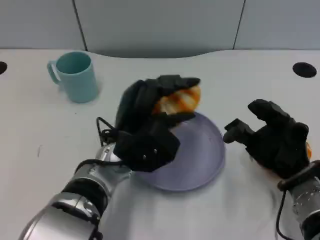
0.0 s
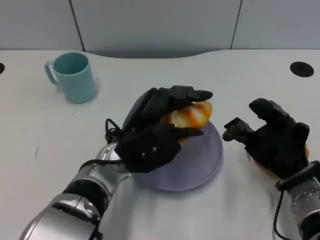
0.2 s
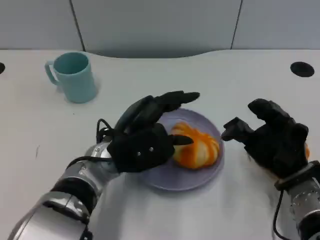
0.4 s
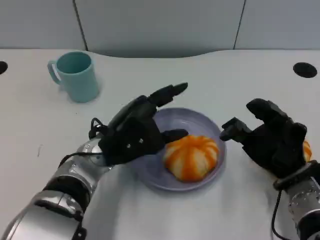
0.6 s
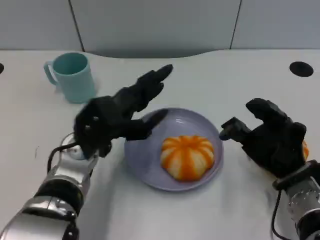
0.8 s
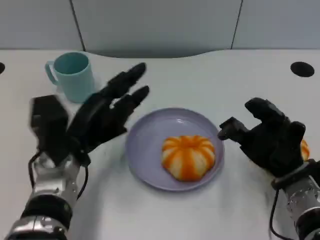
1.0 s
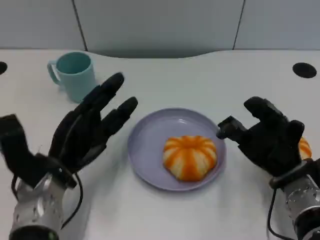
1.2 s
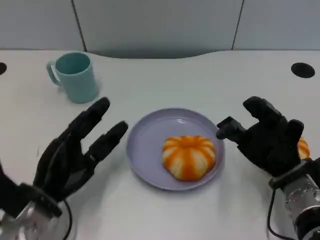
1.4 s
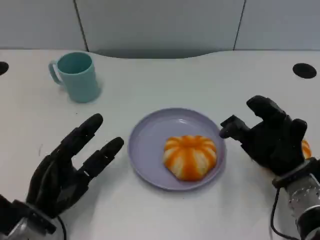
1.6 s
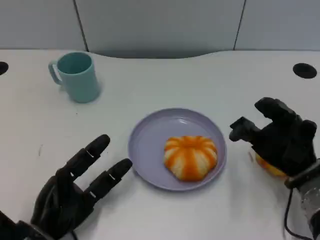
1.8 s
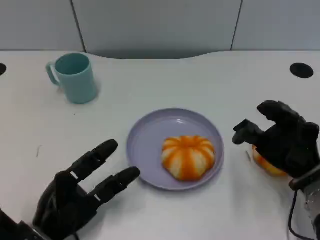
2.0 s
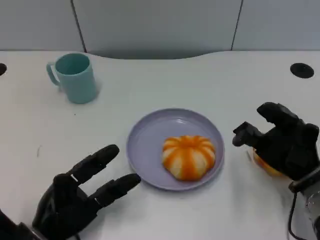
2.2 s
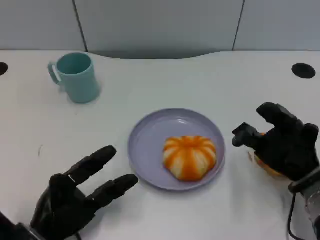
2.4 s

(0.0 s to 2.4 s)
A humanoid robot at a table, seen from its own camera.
Task of the whole recording: Grasp the bread from the table and place it into the plate.
0.0 s - 1.2 s: The left hand travels to the left by roughly 10 cm.
1.2 s - 2.4 s: The left hand is displaced backward and downward by approximately 10 cm.

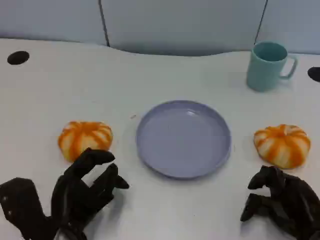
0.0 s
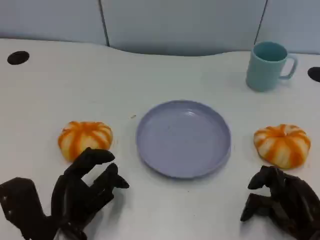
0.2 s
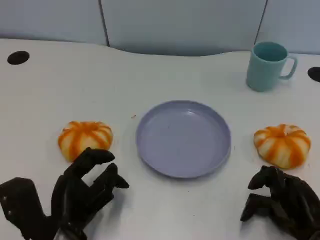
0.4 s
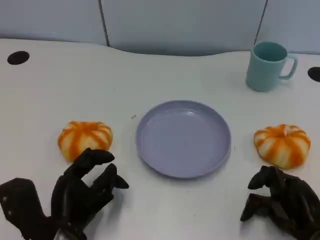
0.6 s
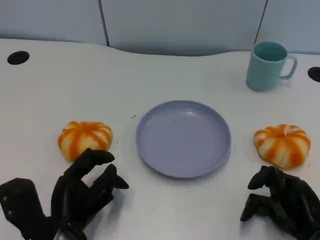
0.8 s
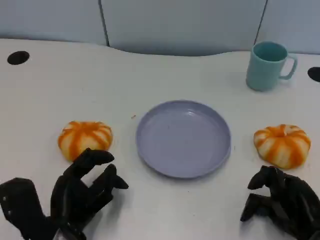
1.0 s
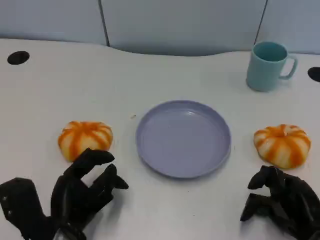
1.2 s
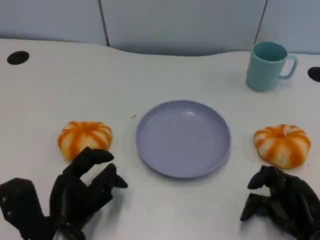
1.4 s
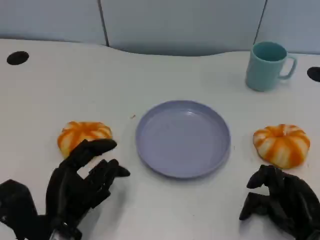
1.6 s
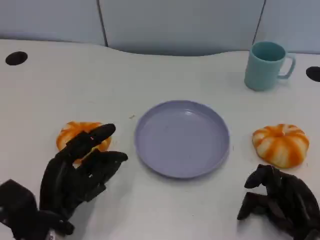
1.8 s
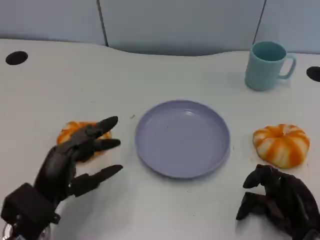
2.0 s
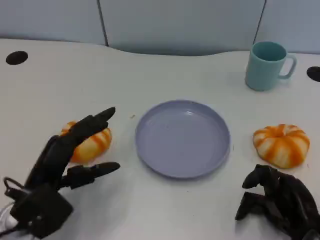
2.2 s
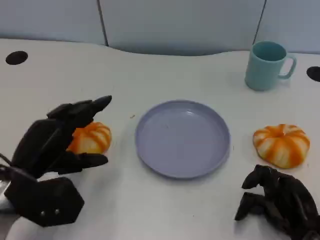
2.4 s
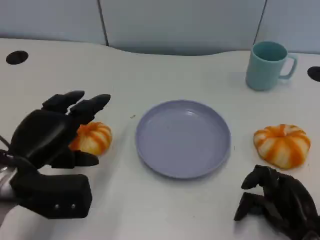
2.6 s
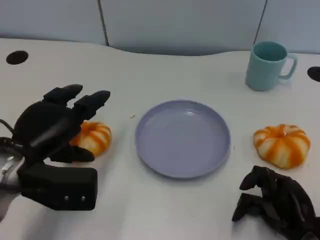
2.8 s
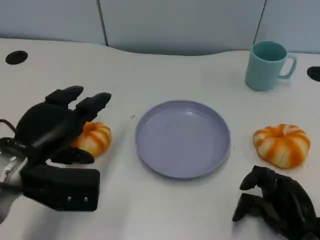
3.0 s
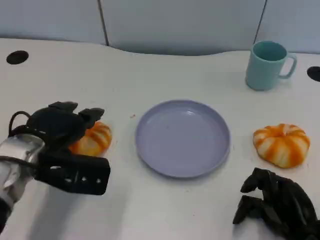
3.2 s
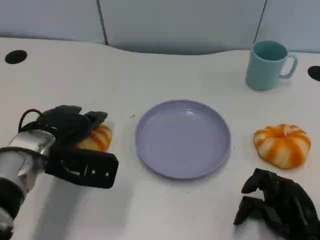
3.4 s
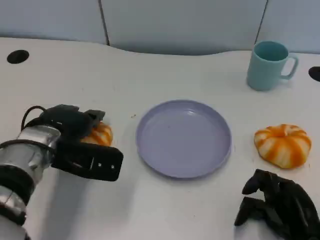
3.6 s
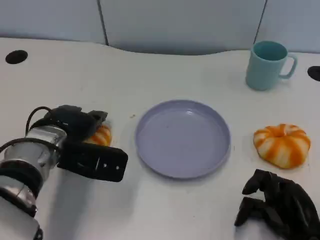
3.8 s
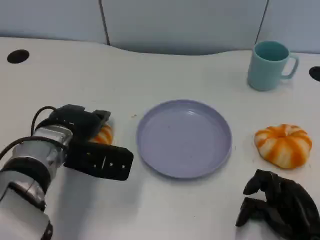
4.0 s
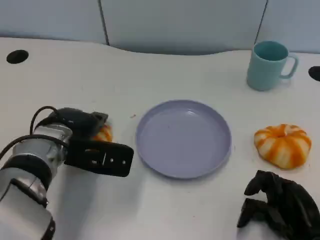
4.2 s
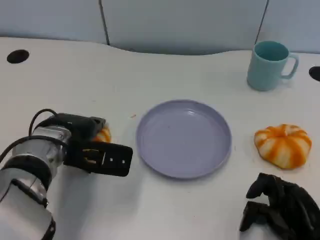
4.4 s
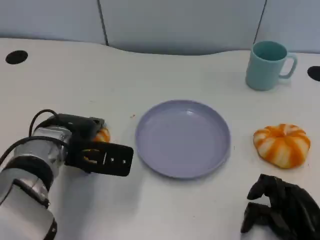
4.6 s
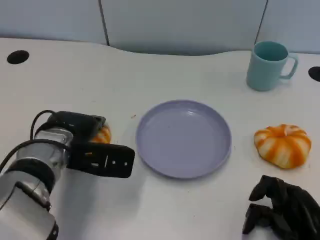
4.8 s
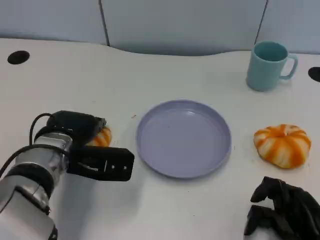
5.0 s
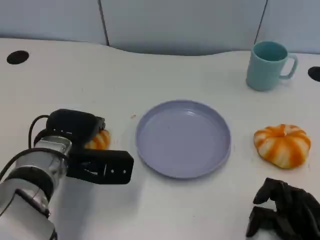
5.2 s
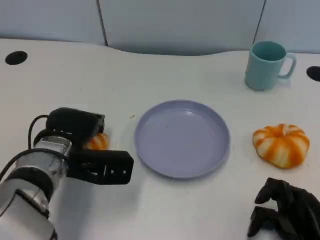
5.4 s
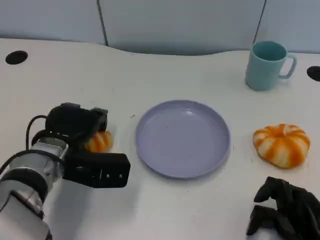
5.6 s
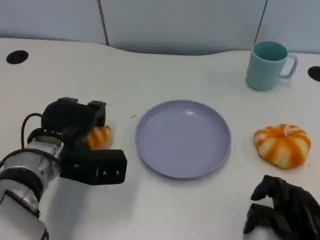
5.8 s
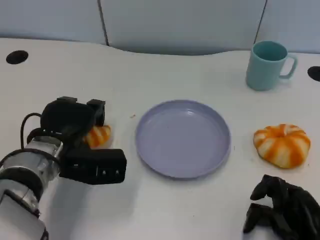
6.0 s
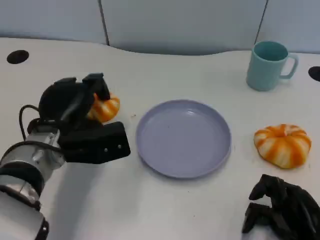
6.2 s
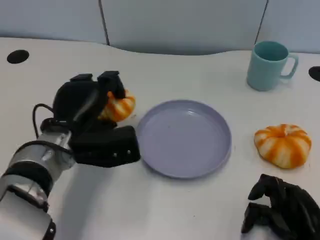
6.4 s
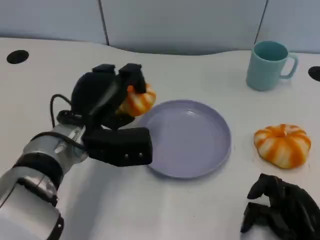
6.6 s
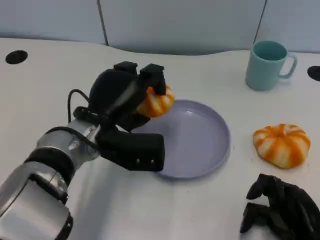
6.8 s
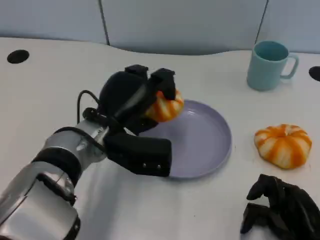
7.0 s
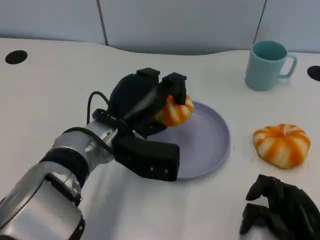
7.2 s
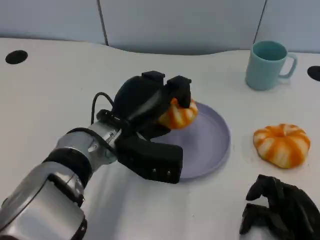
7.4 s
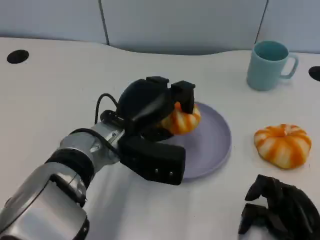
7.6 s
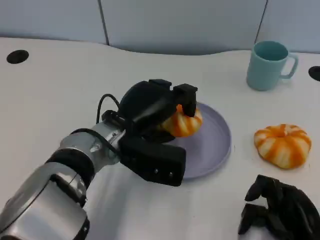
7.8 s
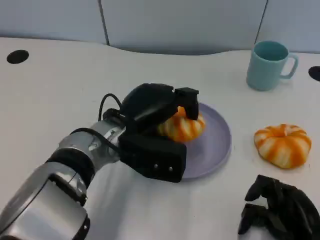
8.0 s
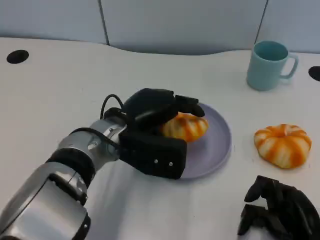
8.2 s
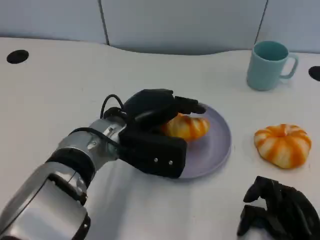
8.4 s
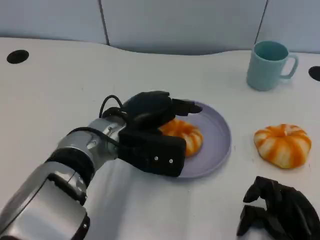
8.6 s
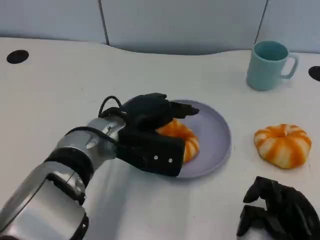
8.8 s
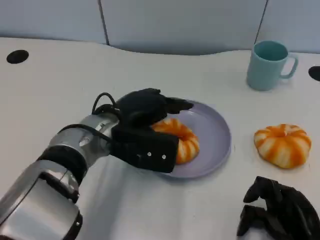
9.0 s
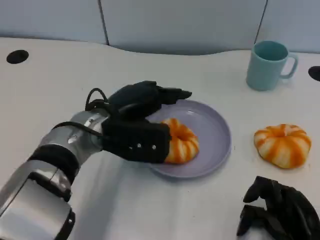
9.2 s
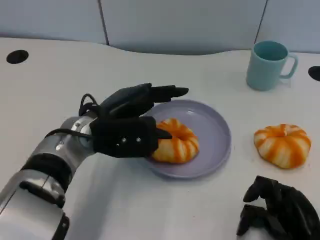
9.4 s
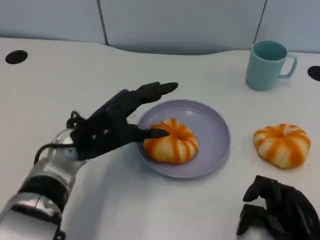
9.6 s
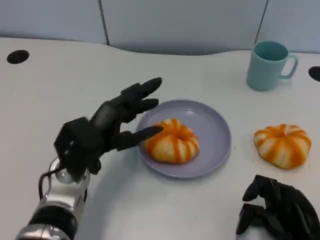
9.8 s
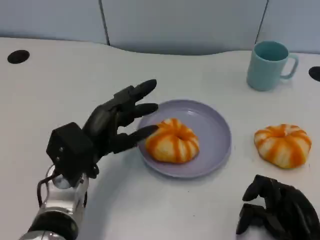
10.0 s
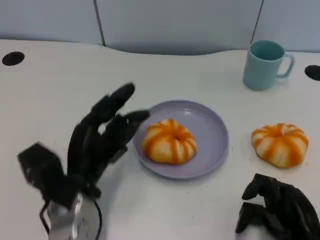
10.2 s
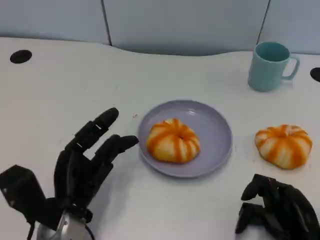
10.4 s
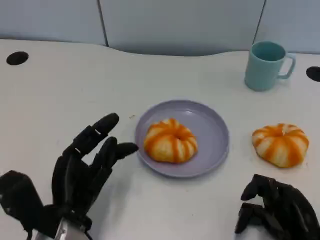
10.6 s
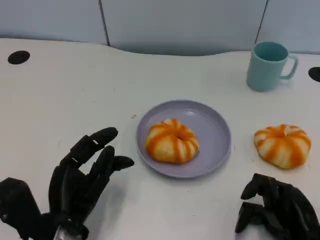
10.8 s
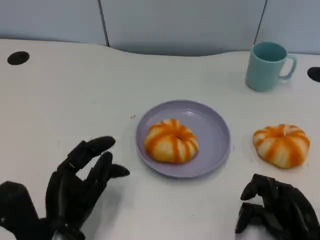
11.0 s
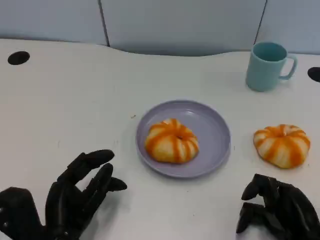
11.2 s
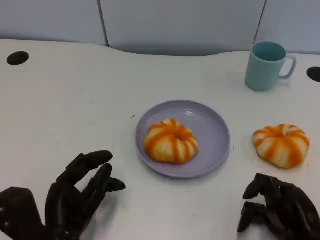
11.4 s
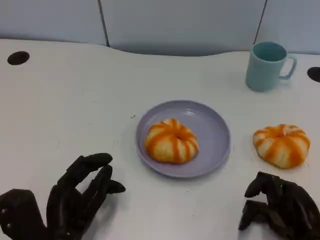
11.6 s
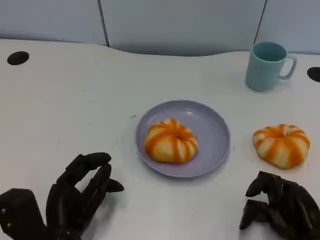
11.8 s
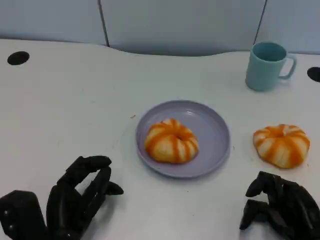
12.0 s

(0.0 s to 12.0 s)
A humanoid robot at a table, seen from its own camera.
Task of the whole recording: Grasp the bread from the table and place it into the plate.
0.0 s - 1.6 s: The hands move only a little.
1.6 s - 3.0 s: The left hand goes approximately 10 cm upward and forward.
3.0 s - 4.4 s: The left hand heads forward, covering approximately 5 cm.
6.0 s - 7.6 s: The left hand goes some 10 cm to the right.
9.0 s - 10.4 s: The left hand moves backward, downward and to the left, roughly 15 cm.
10.4 s - 12.0 s: The hands stay close to where they were, moving slightly.

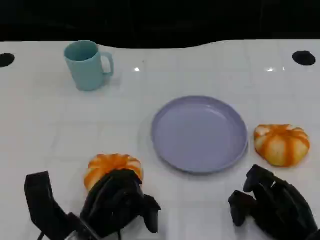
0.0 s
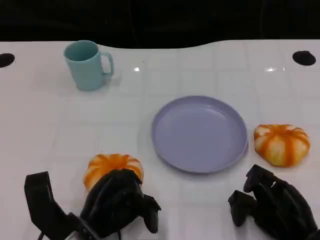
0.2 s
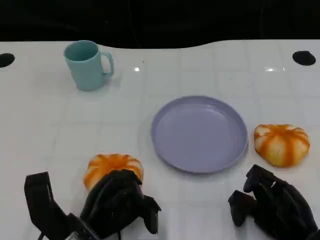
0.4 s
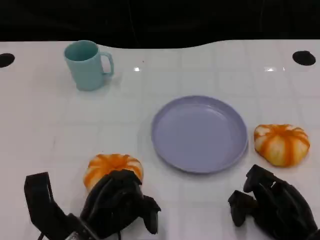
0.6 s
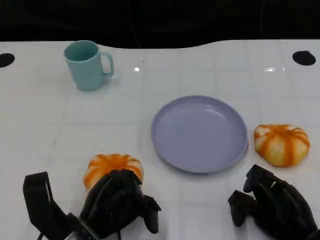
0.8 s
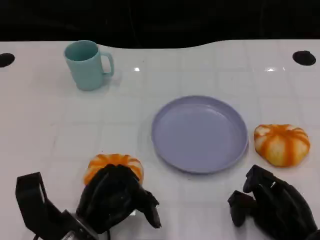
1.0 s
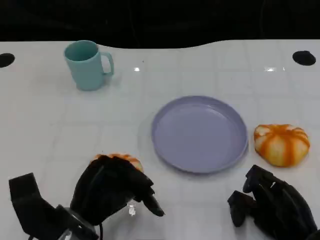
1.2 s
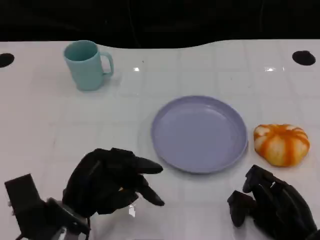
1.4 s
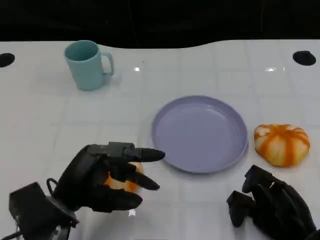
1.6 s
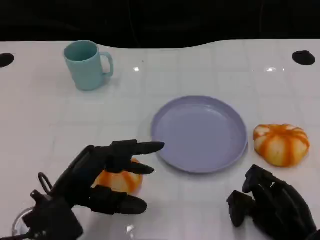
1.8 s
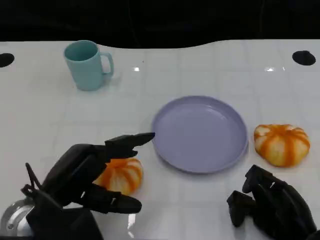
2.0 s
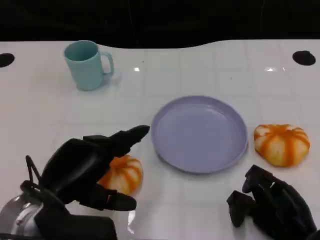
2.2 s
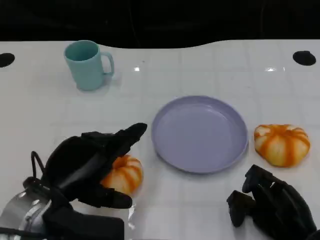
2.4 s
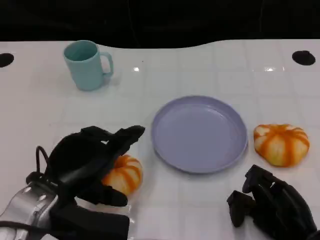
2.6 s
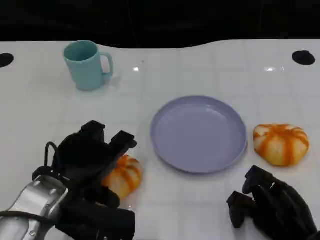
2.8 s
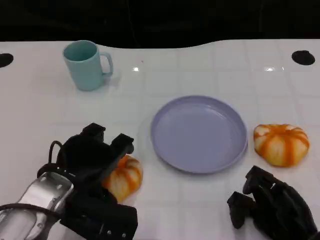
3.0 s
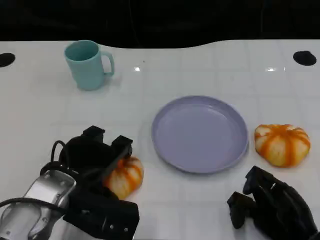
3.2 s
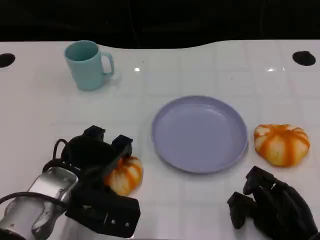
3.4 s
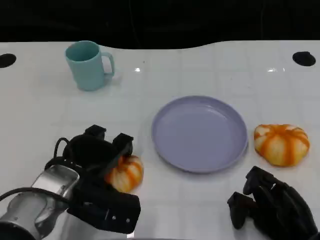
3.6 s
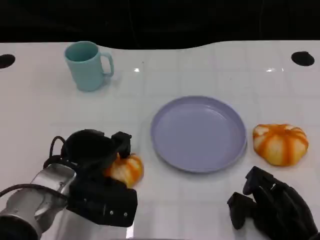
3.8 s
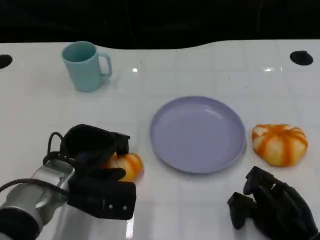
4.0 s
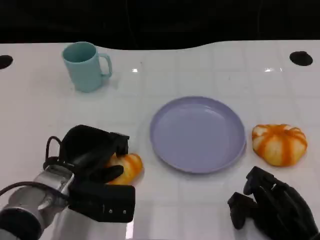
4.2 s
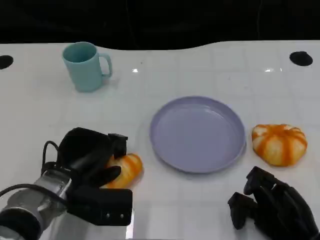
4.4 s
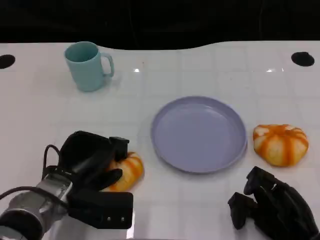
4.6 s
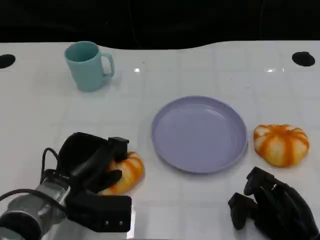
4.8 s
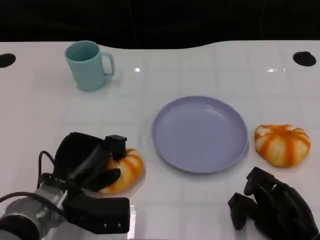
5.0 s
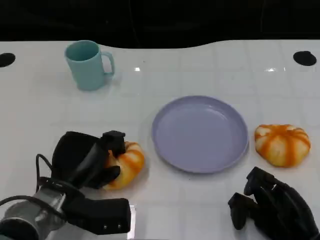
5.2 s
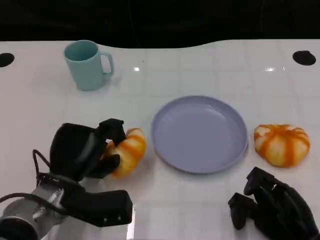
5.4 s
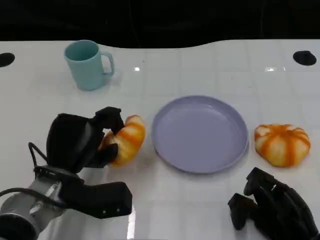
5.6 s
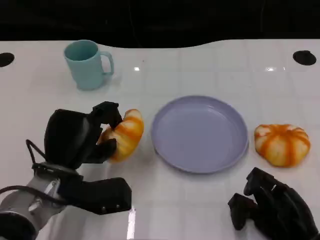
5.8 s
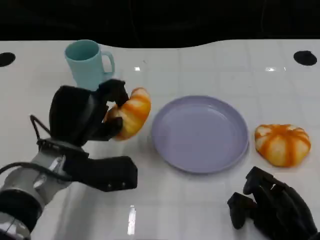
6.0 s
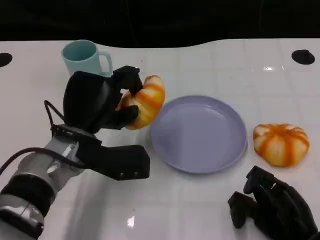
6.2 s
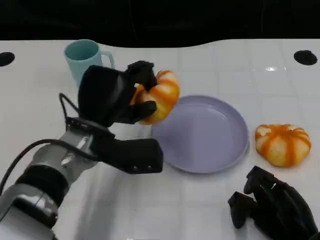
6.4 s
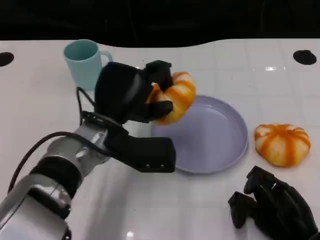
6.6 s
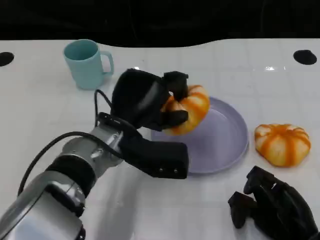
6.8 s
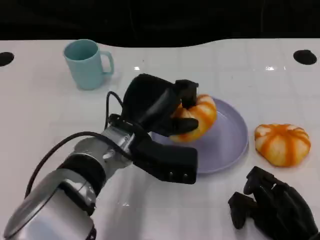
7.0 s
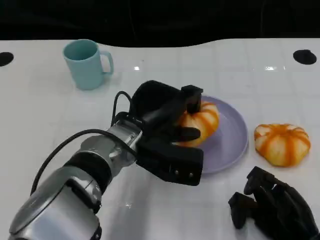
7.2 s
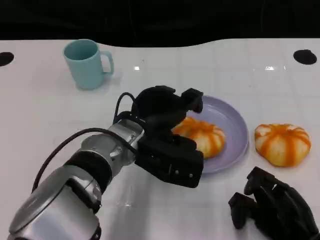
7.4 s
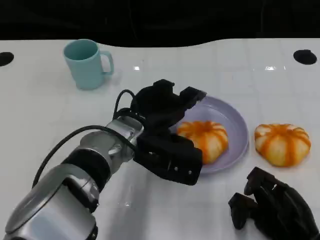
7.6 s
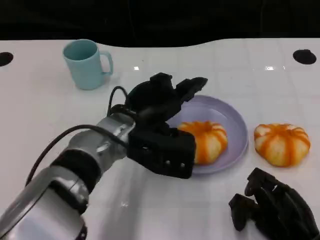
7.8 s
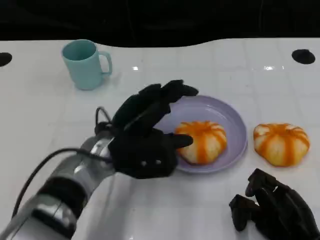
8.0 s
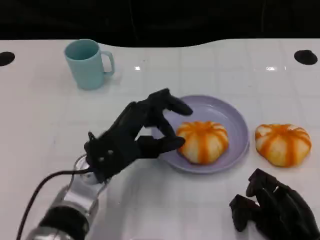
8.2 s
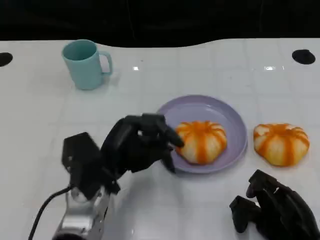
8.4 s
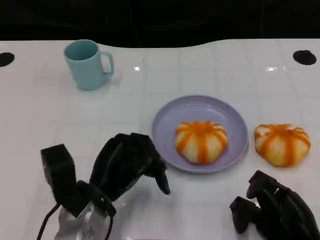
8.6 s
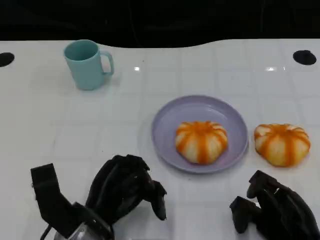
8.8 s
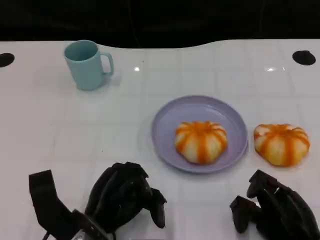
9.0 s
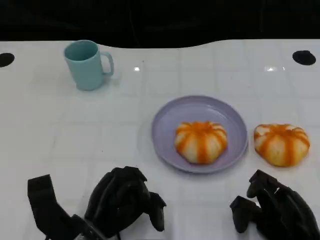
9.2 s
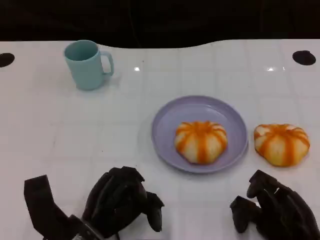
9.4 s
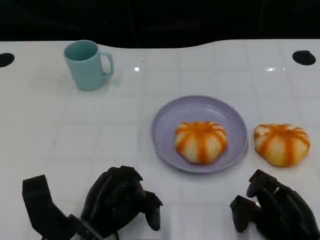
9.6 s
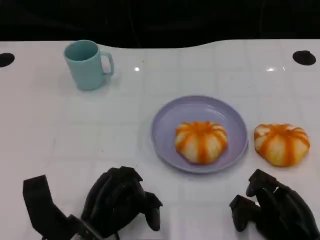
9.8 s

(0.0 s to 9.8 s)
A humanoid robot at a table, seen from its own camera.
Task of the whole recording: Grasp the bread from the table and place it into the plate.
2.8 s - 4.2 s: The left hand shifts some 5 cm downward.
5.6 s - 7.0 s: The left hand is displaced to the right by some 10 cm.
7.0 s - 8.4 s: The left hand shifts some 5 cm to the left.
8.4 s - 9.8 s: The left hand travels backward by approximately 5 cm.
